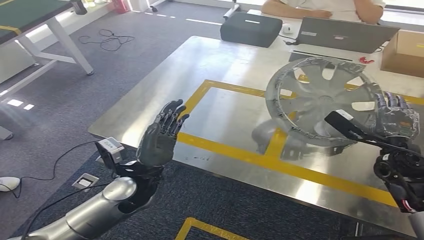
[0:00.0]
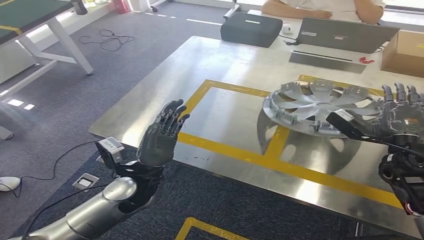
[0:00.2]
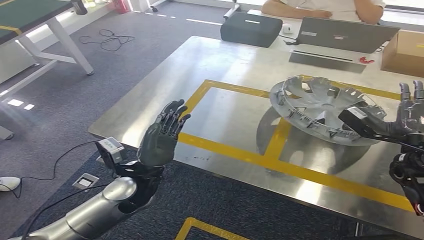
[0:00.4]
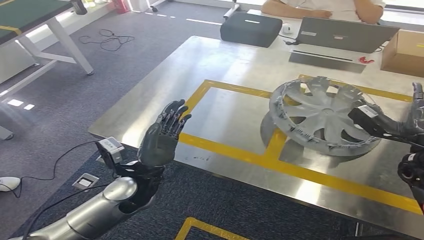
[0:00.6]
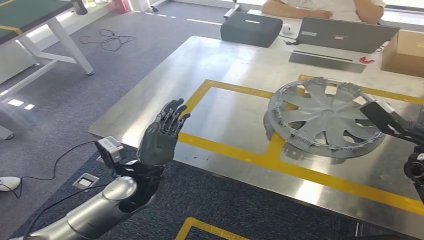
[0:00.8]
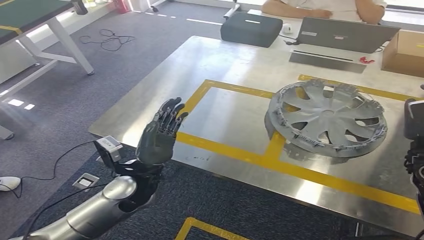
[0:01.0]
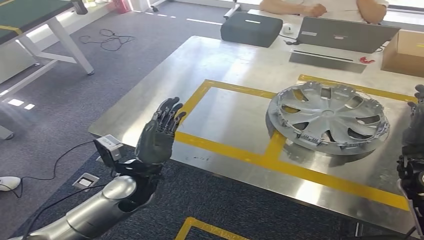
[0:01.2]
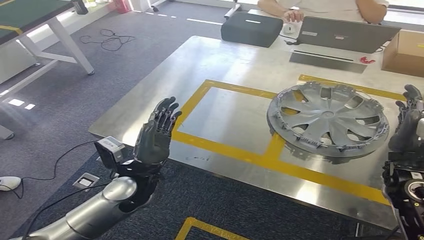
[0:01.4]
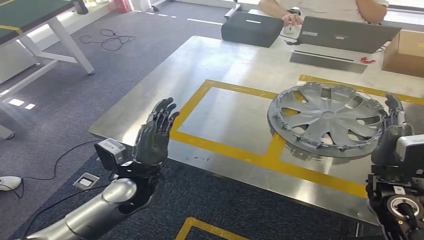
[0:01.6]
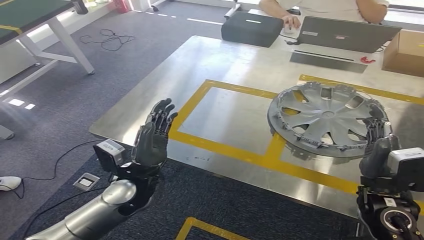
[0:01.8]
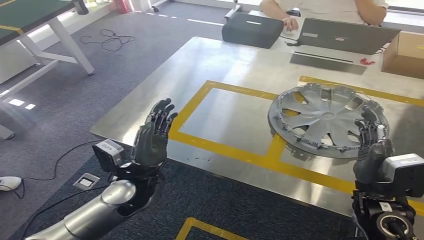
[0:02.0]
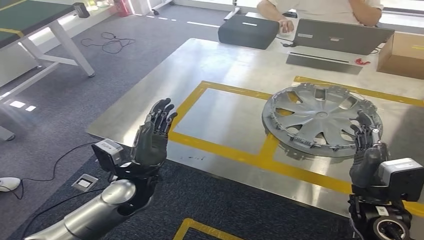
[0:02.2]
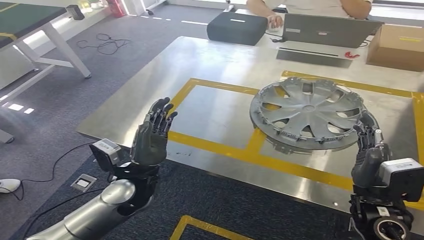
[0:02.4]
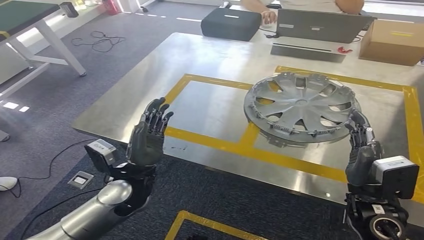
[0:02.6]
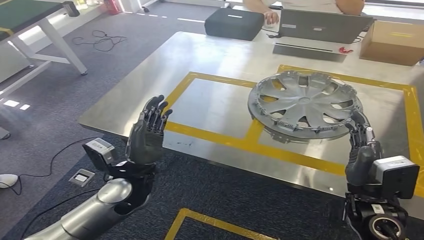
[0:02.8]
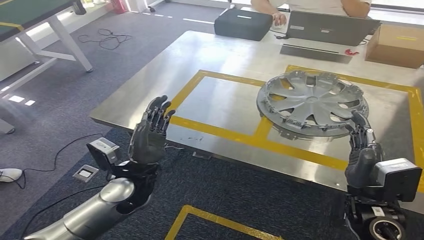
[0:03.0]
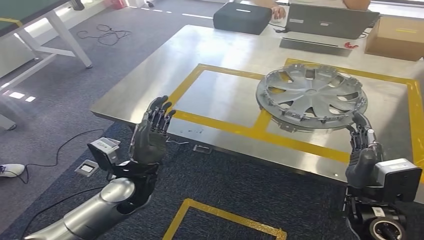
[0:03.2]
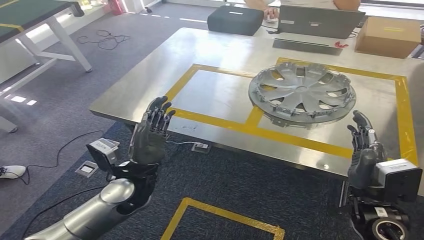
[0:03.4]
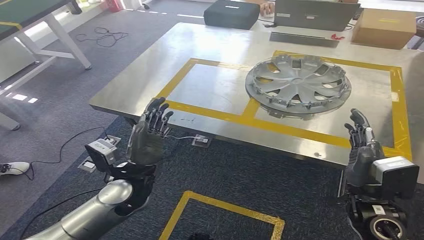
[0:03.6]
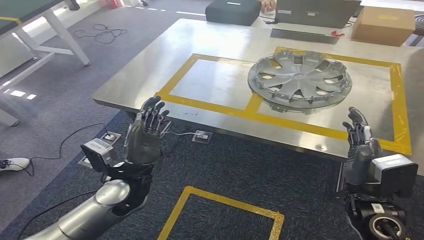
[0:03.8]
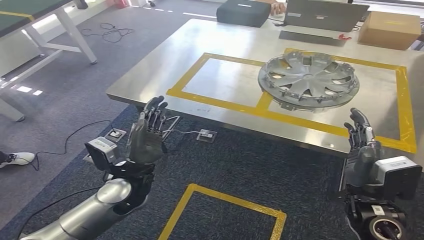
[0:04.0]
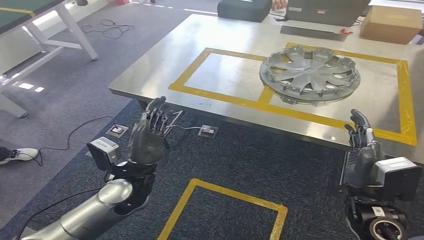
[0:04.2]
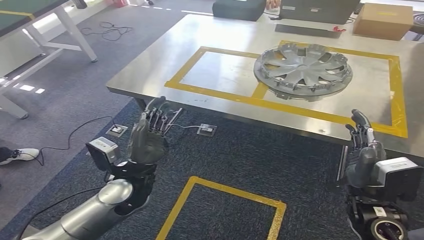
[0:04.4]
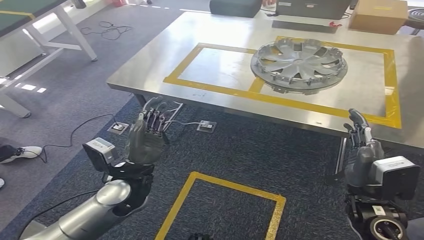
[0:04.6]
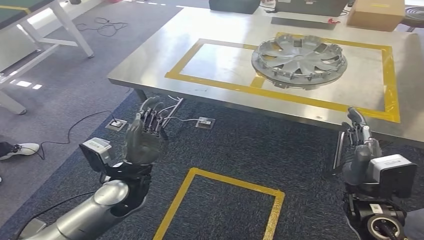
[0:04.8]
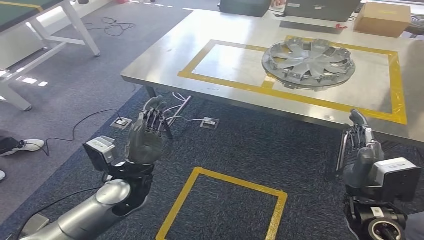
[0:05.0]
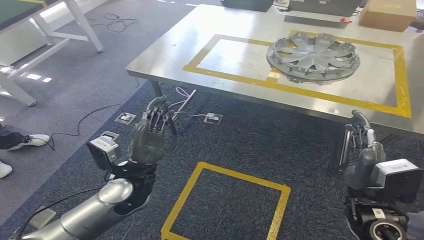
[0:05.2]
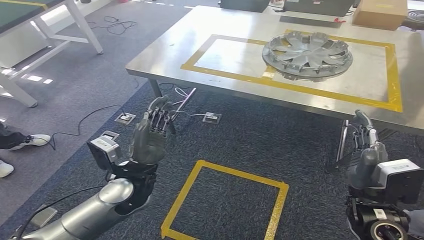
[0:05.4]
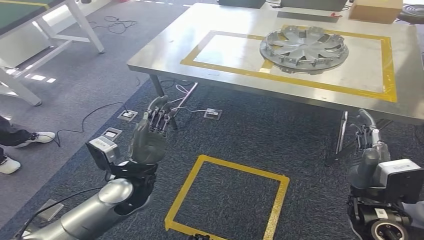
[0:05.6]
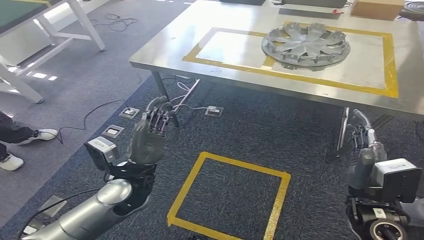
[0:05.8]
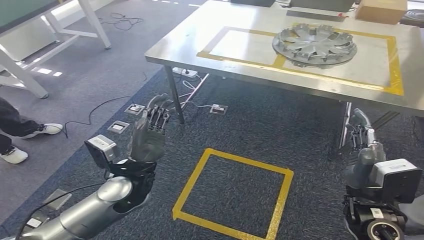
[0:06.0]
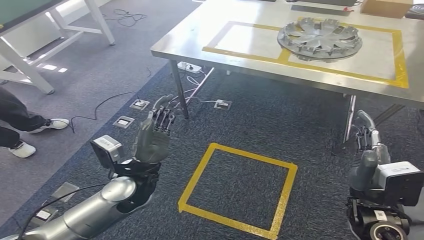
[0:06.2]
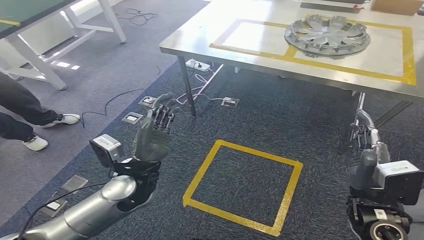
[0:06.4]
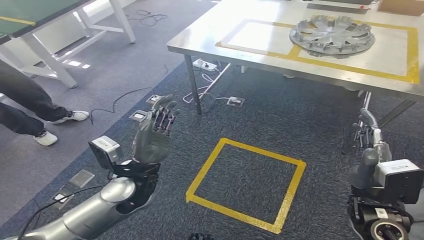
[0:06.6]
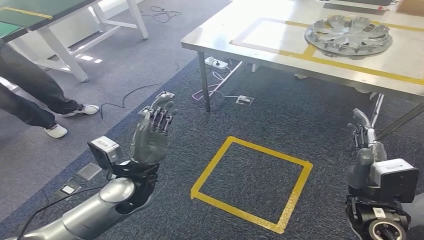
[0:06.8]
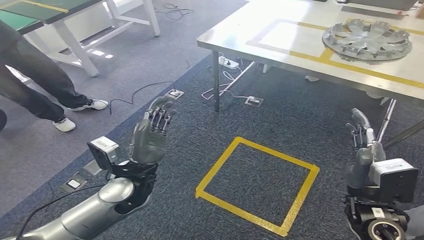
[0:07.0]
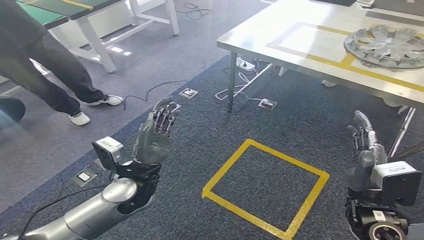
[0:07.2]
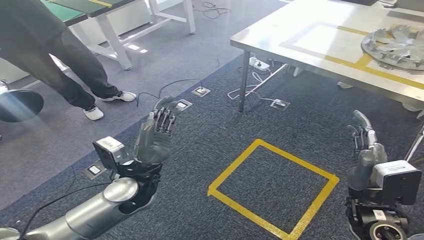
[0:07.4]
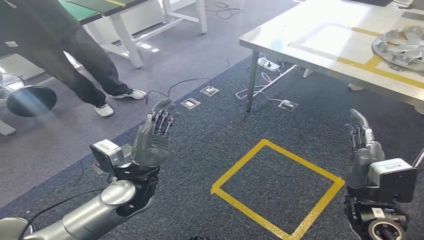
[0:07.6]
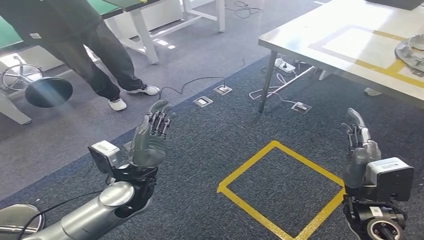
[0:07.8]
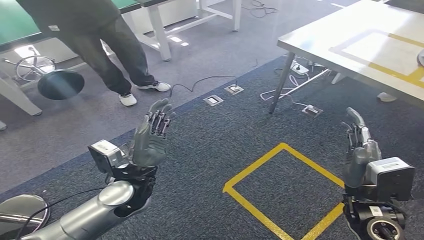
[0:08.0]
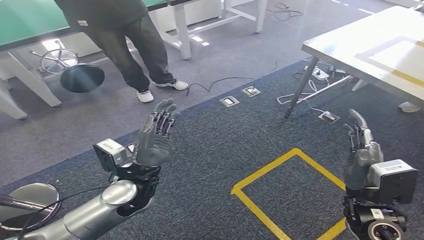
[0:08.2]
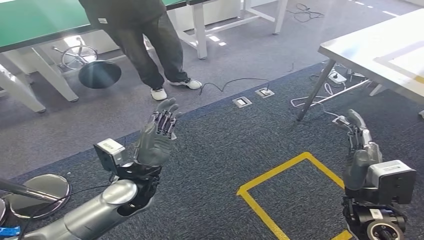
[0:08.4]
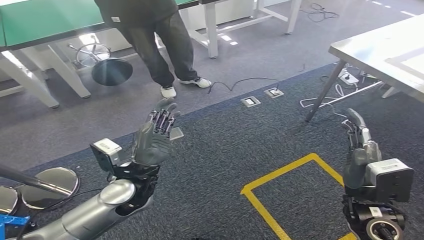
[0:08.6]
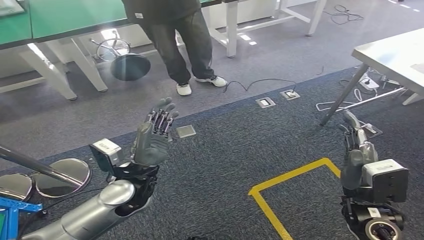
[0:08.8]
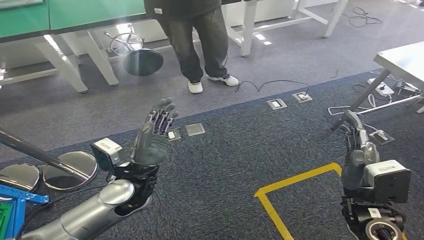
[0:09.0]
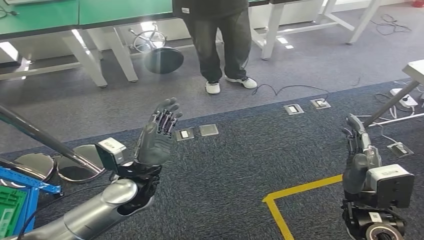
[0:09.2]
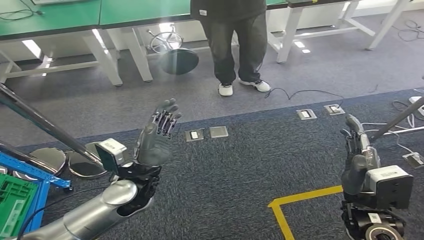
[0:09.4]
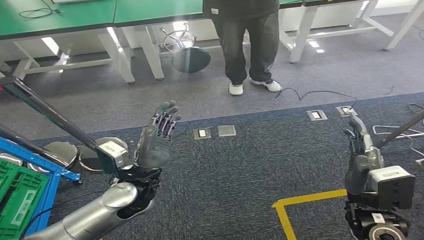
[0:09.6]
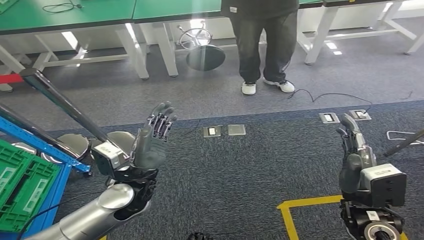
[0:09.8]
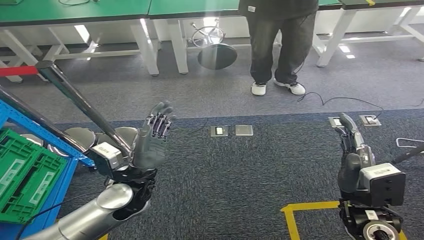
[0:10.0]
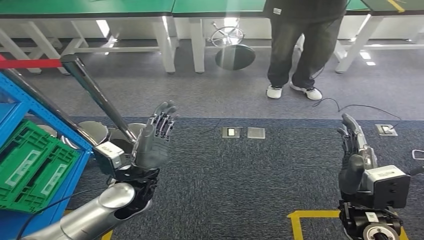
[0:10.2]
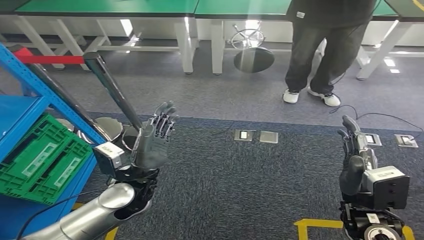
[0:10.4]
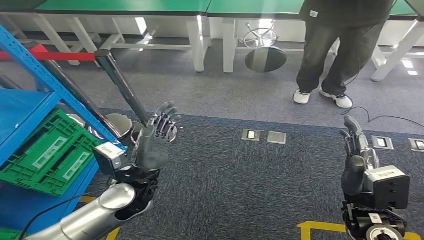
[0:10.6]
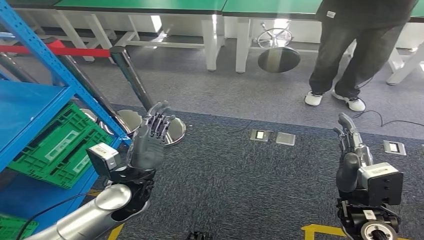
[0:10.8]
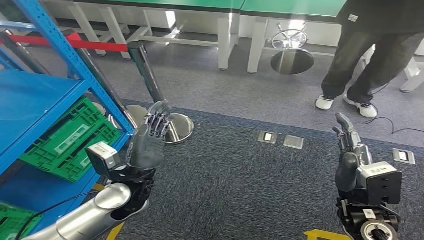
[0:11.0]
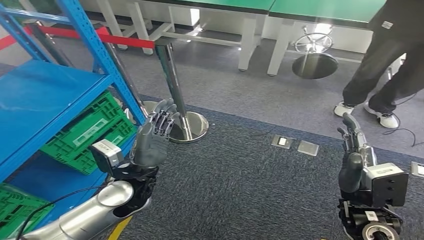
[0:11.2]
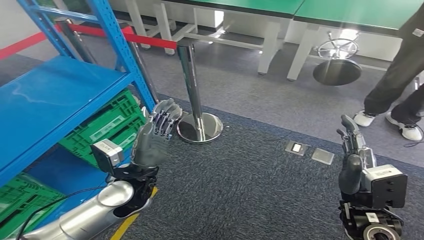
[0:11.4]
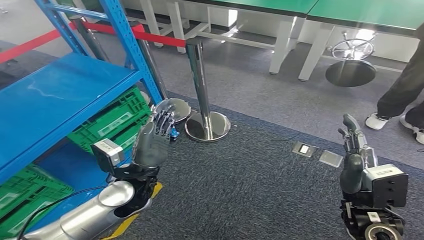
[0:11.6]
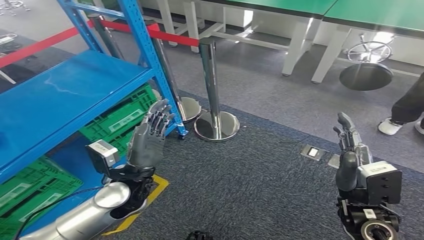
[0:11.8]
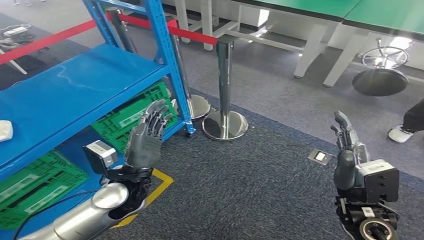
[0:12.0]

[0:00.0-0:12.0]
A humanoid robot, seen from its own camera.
0:00.0 to 0:01.6: The right hand shifts some 10 cm backward.

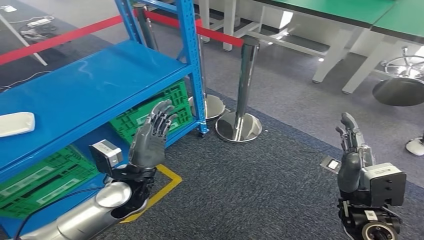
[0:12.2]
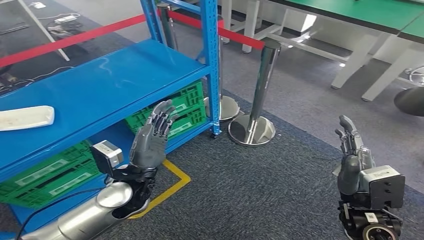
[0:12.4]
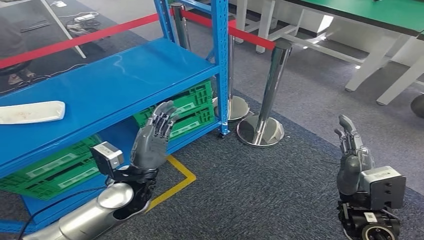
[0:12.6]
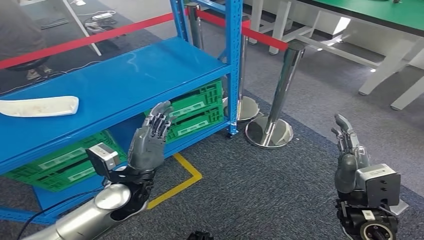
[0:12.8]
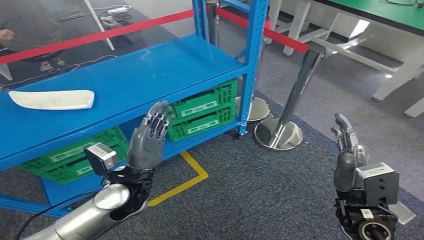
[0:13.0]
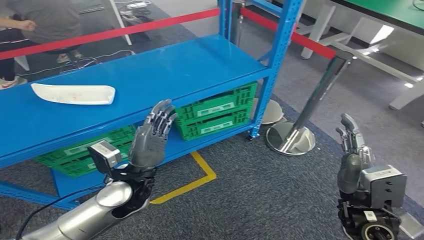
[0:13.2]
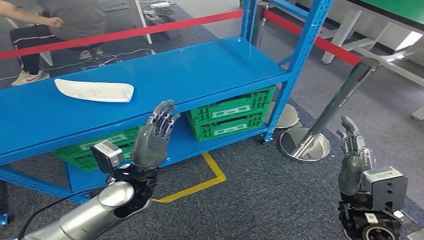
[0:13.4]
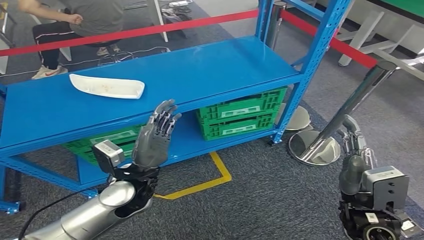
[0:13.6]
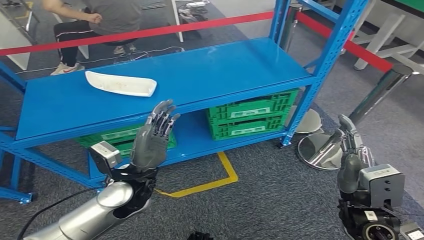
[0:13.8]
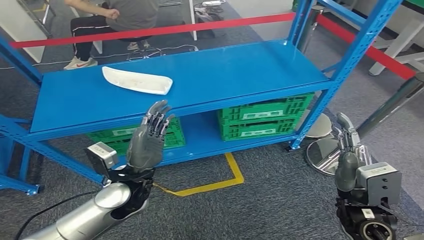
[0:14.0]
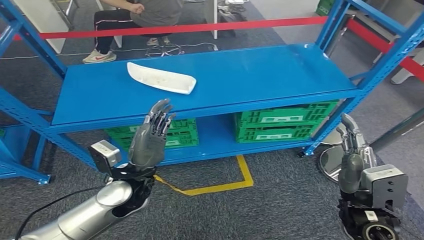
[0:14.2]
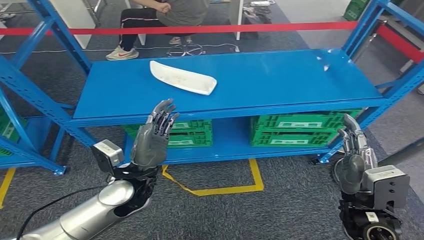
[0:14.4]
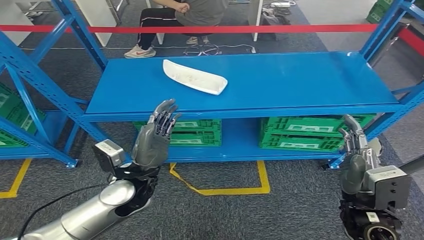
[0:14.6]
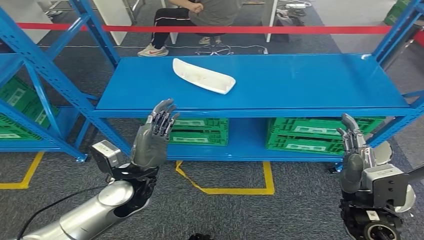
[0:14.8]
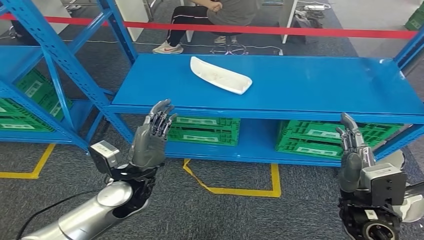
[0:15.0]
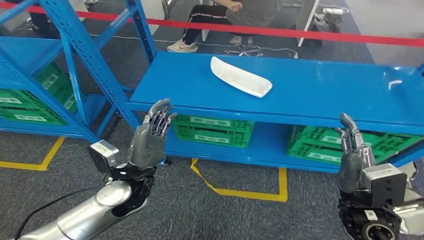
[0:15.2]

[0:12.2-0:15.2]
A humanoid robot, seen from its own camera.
Step, 0:12.2 to 0:15.2: Return to the initial position at the workbench.

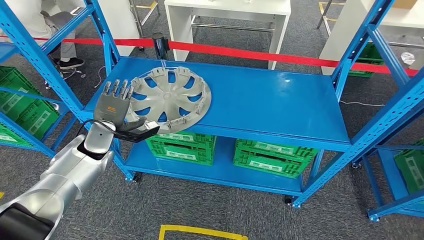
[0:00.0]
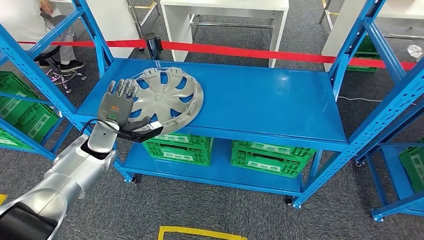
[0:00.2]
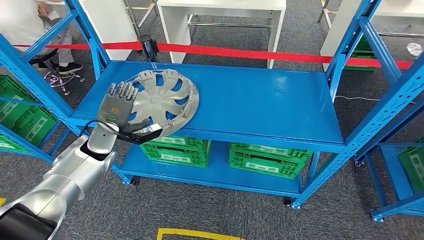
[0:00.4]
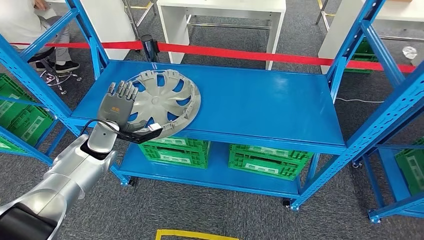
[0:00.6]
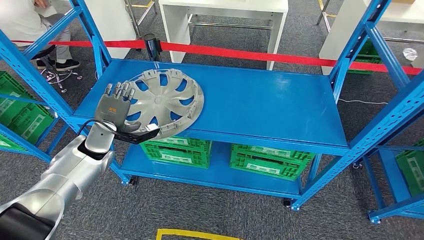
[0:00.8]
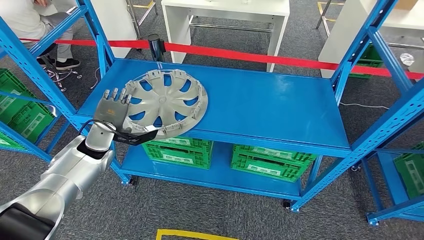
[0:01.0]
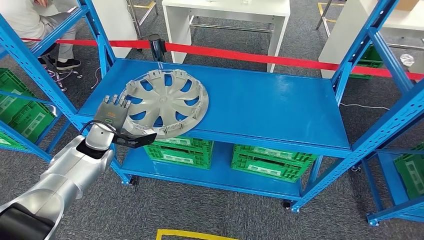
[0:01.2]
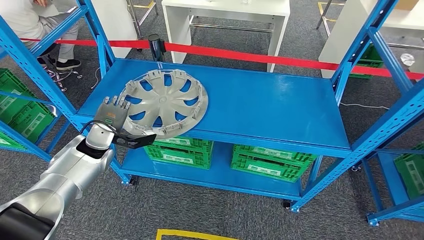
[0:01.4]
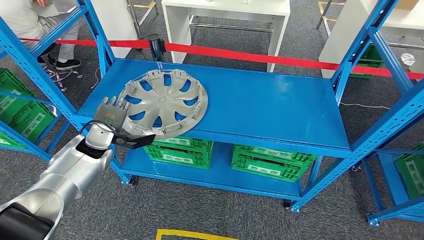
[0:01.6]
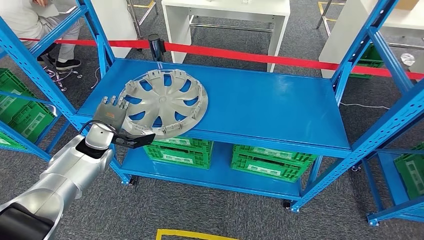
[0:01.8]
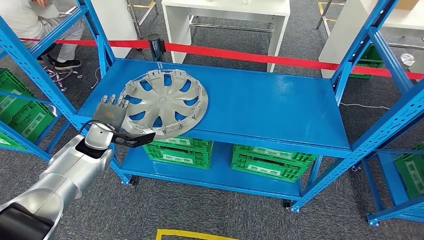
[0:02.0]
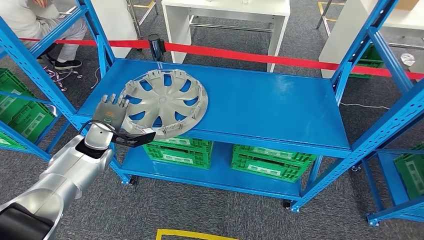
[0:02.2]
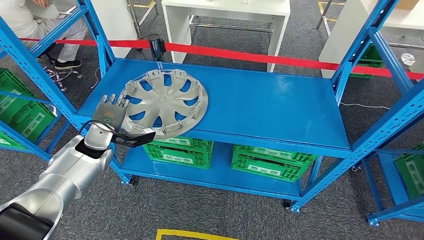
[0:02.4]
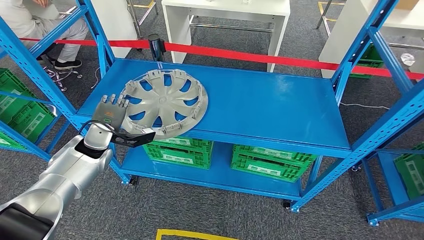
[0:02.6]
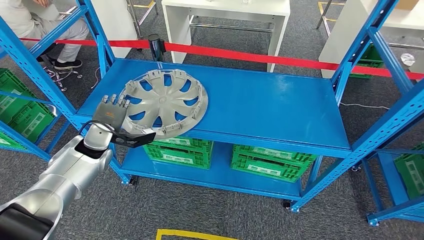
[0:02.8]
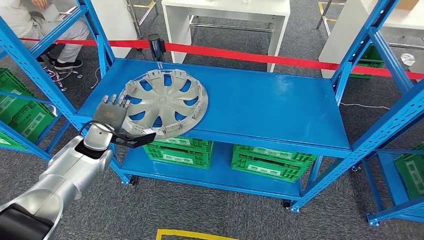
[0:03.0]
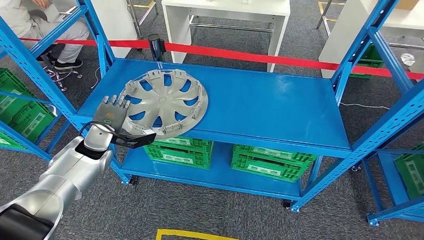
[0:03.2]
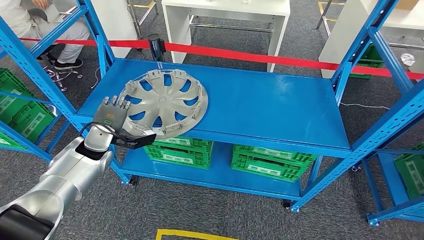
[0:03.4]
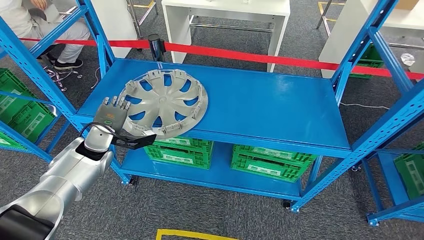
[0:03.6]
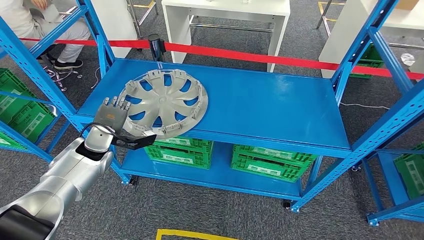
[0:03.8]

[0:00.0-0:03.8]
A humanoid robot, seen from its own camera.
0:01.2 to 0:03.8: Neither hand changes place.
